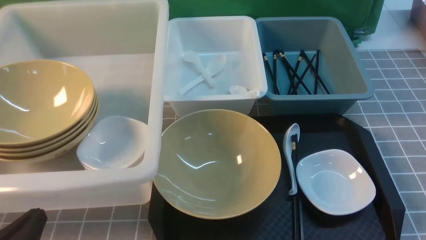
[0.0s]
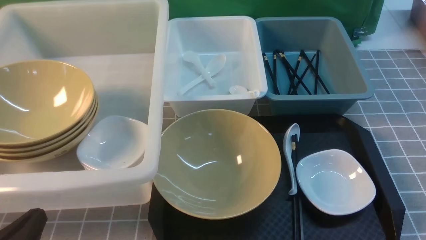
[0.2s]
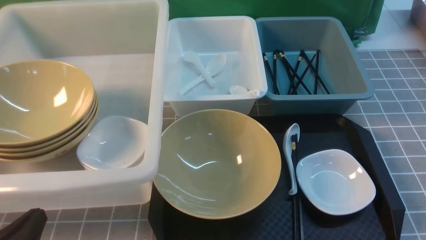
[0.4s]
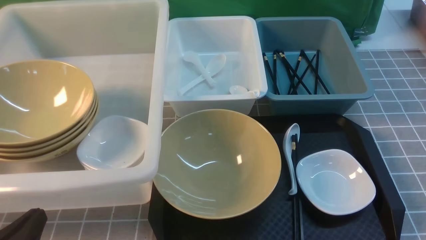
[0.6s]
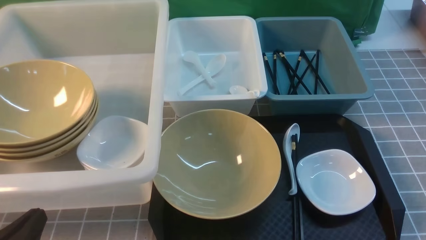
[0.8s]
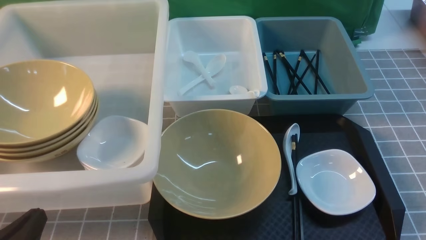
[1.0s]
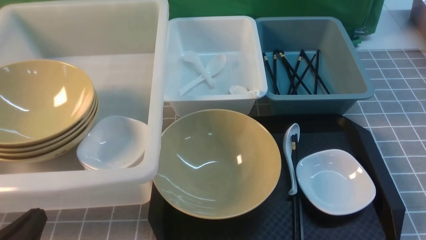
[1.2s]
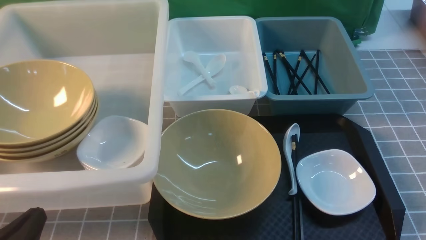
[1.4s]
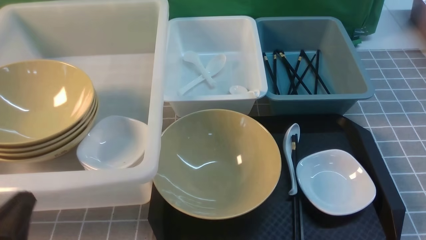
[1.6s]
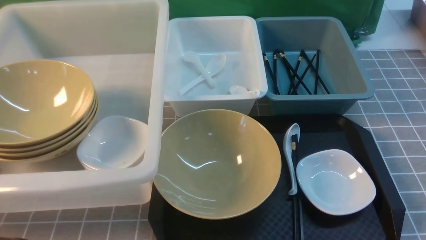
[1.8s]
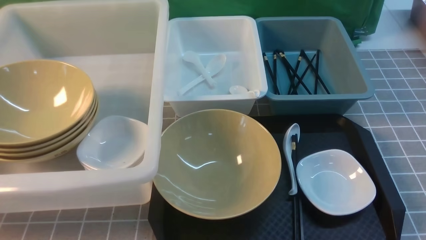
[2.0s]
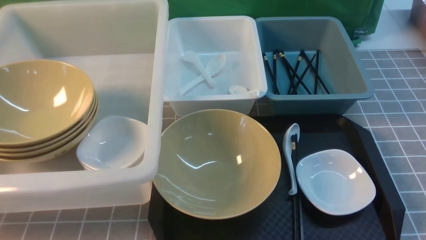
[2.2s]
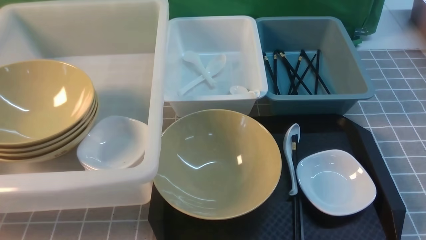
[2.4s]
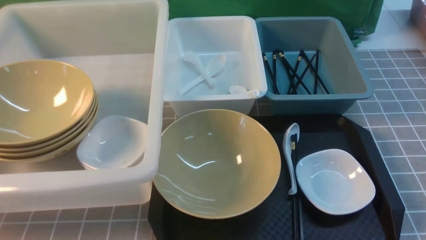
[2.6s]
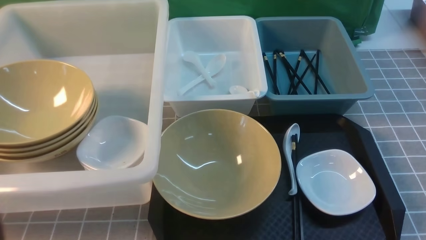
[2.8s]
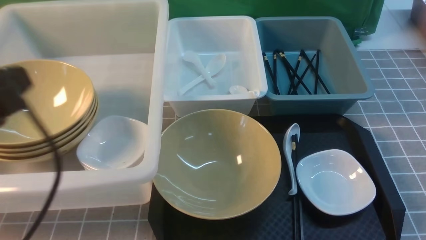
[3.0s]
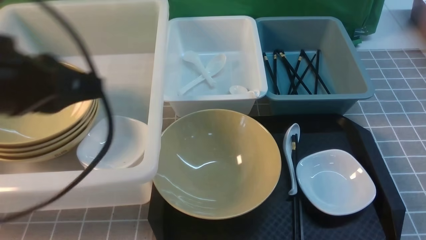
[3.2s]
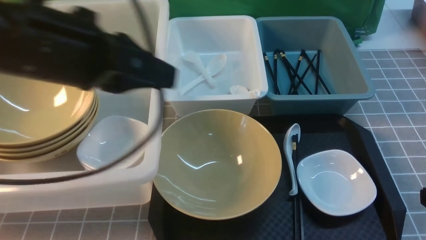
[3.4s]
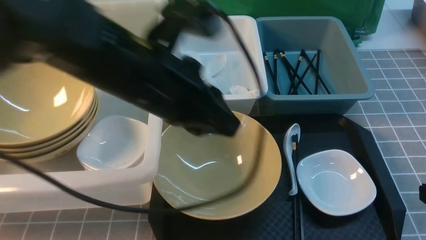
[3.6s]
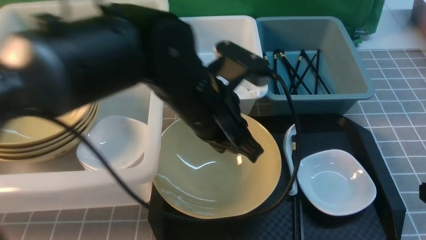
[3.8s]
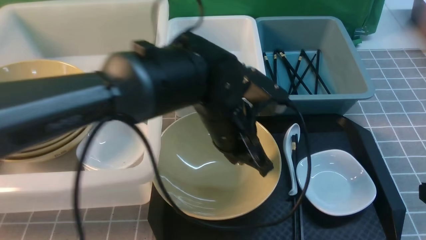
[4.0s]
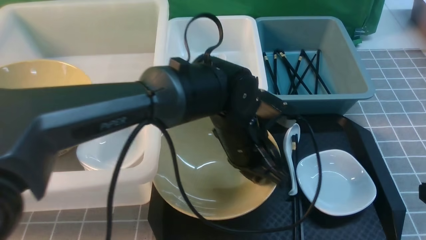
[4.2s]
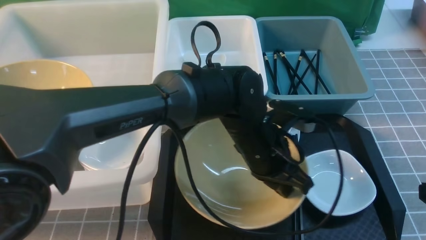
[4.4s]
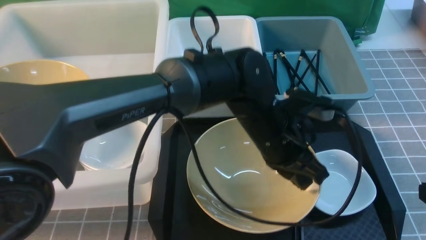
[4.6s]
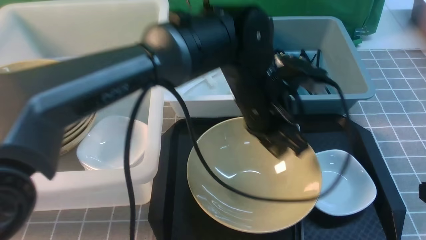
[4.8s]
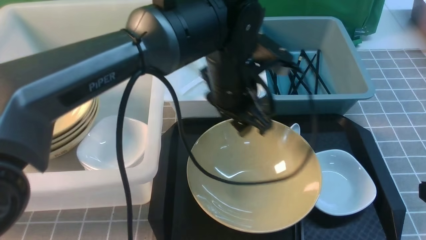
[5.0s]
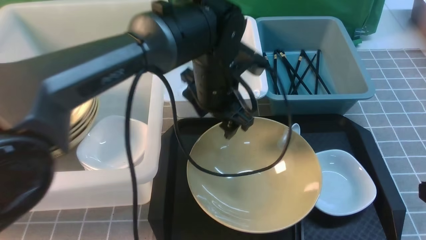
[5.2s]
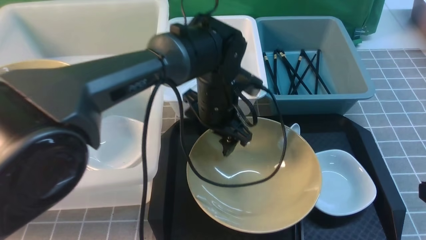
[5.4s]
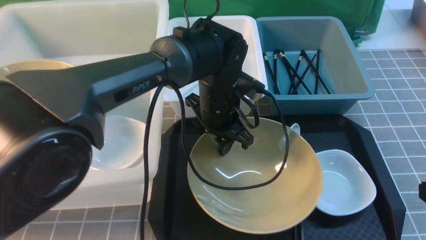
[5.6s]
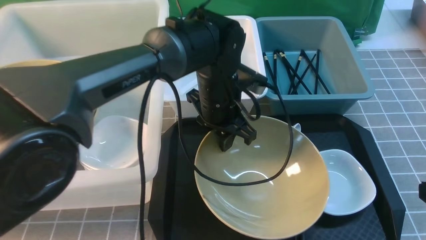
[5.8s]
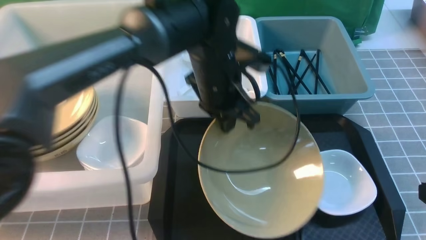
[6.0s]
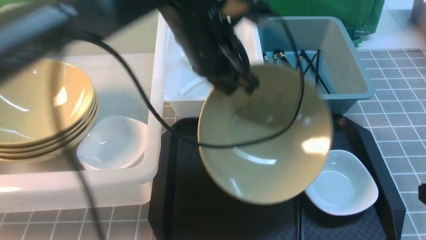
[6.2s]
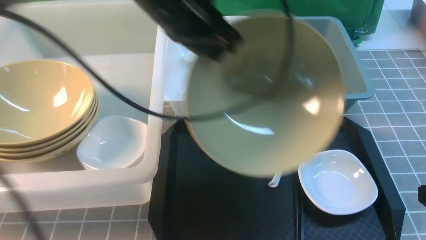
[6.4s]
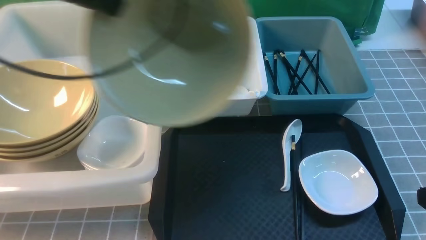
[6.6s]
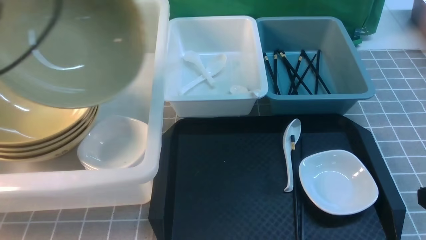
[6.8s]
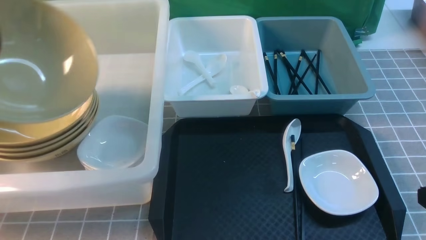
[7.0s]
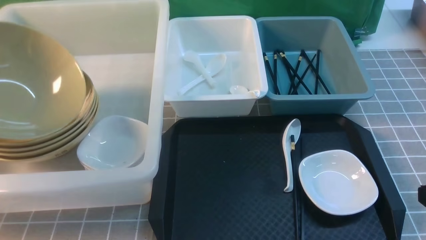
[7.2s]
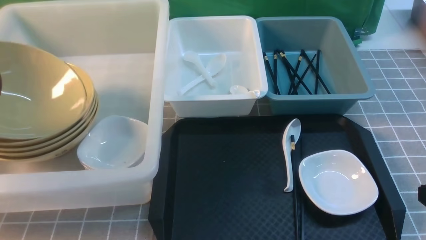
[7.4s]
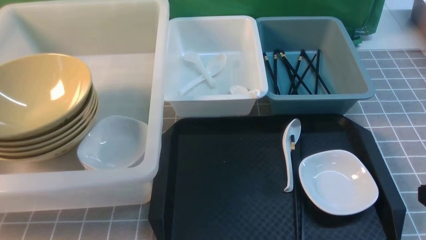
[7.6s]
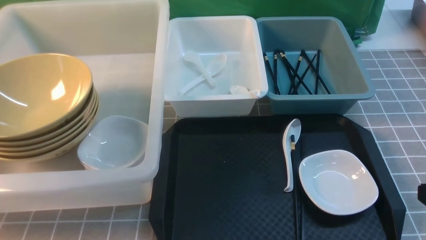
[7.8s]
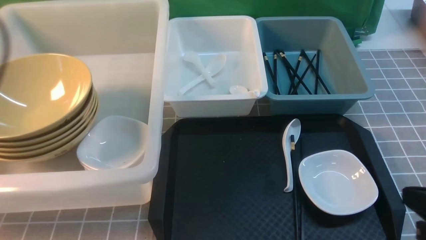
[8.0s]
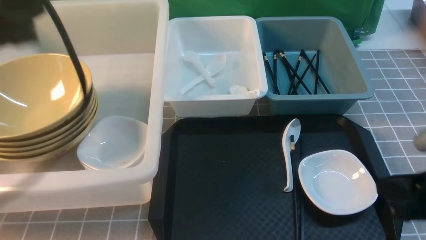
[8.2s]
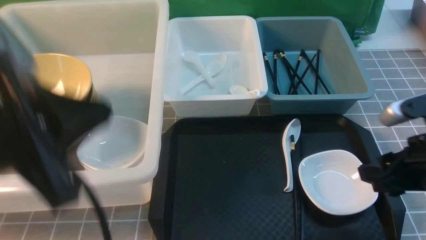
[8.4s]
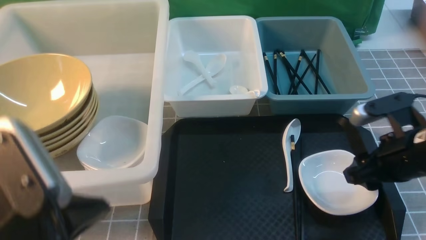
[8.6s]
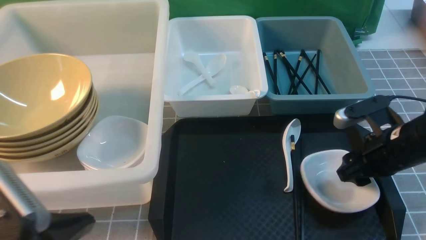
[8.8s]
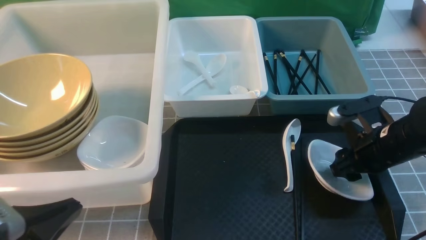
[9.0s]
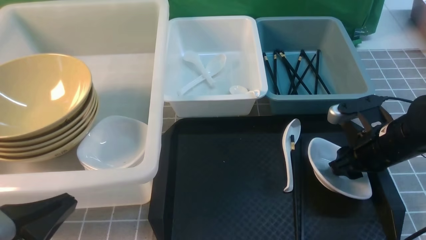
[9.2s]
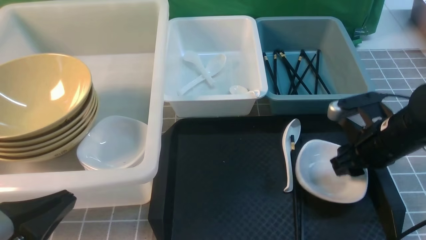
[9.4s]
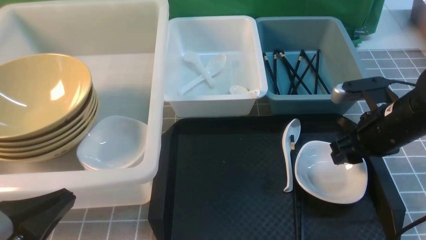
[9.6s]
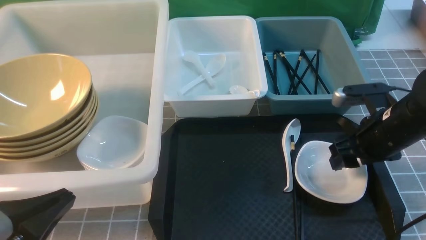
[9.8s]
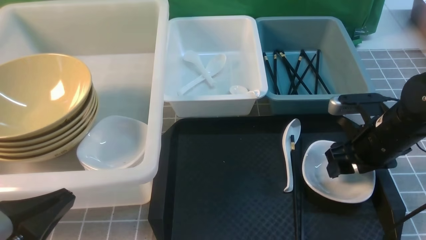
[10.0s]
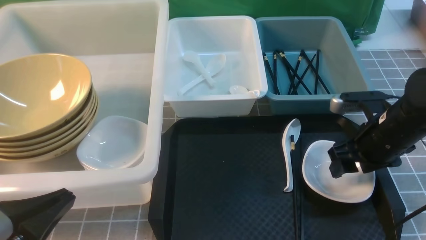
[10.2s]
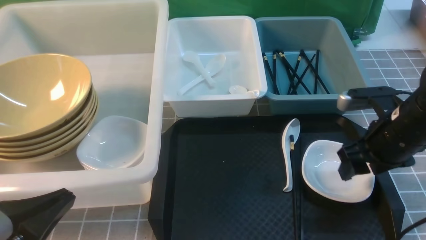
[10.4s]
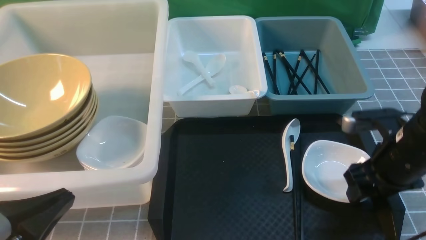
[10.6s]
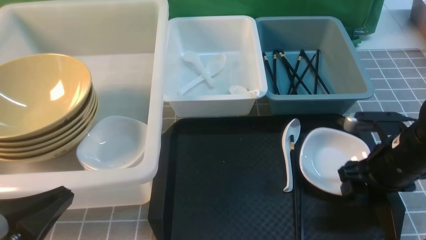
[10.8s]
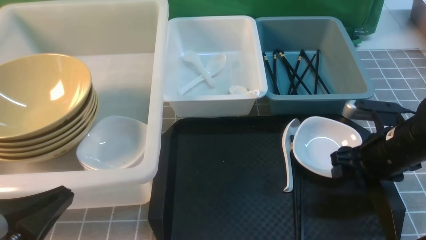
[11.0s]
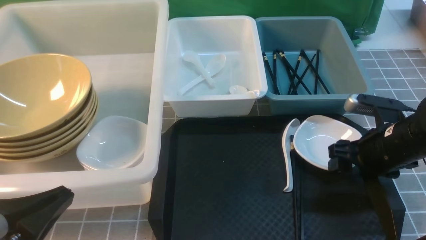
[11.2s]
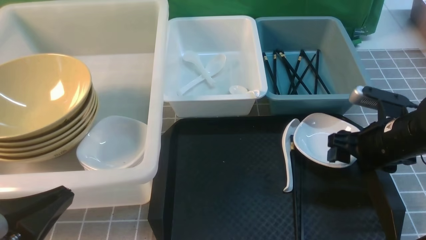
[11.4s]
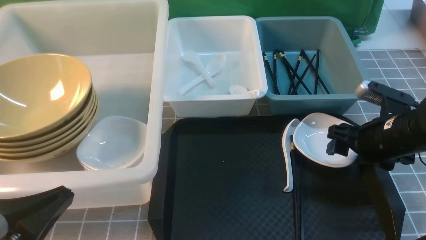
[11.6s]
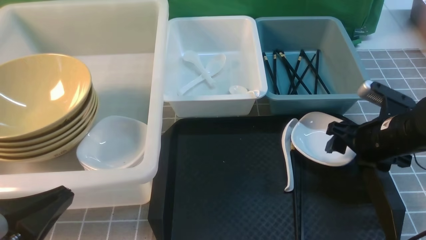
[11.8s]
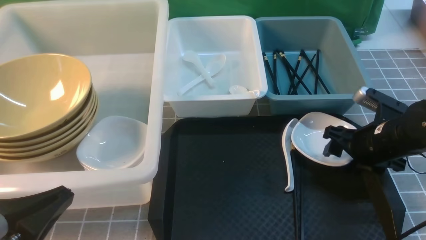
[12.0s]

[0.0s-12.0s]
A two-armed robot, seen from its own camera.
Task of the whole recording: on grey table put chopsticks spoon bowls plates into blue grey white boxes.
Step, 0.0s to 6.0s: use the left arm to grab the yellow noodle bowl on the left.
Step, 6.2s to 7.6s: use the left arm to put the noodle bowl into the large storage box on the left.
0.0s to 1.6s: There are only small adjustments of the grippers.
1.6s to 3.0s: The left gripper goes roughly 20 cm upward and forward.
3.0s to 4.4s: The left gripper goes roughly 35 cm to the right, downward and forward; the right gripper shifts by about 5 cm.
4.4s to 6.0s: The left gripper is displaced upward, to the left and forward by roughly 10 cm, and opens, then closes once more.
6.0s to 7.6s: The left gripper moves to the left, approximately 40 cm, and opens its fingers.
7.6s to 9.0s: The left gripper heads backward and to the right, covering about 25 cm, and closes up. Meanwhile the right gripper shifts approximately 20 cm forward and downward, and opens its fingers.
9.0s to 10.4s: The grippers make only small movements.

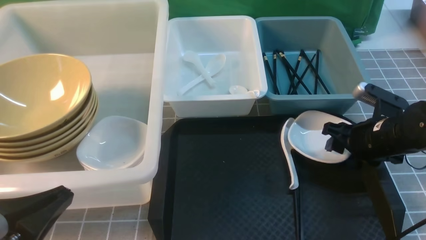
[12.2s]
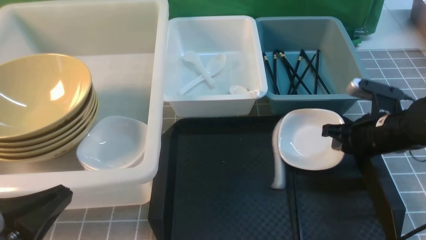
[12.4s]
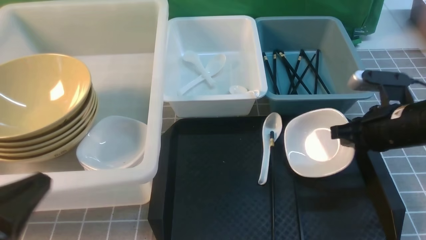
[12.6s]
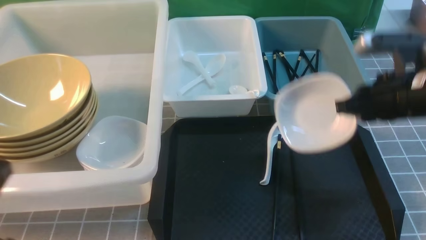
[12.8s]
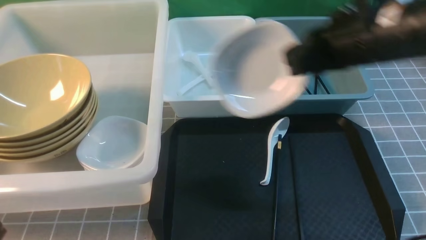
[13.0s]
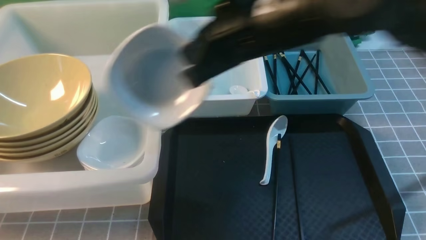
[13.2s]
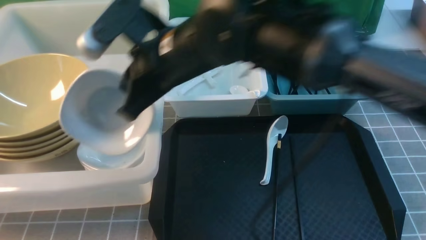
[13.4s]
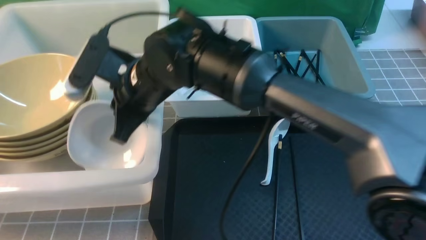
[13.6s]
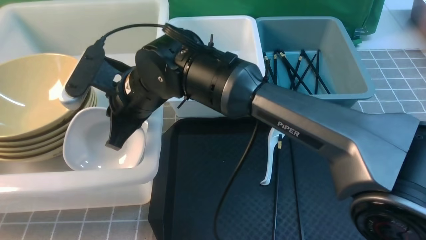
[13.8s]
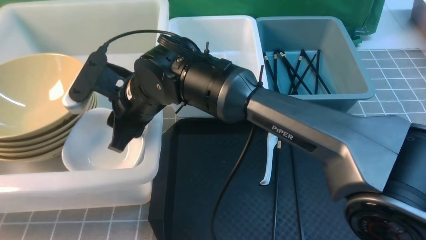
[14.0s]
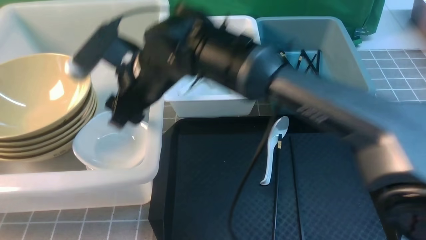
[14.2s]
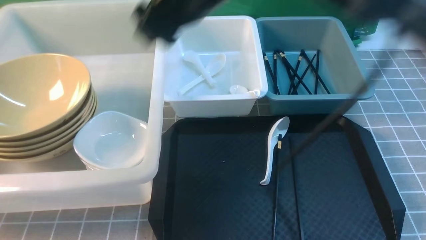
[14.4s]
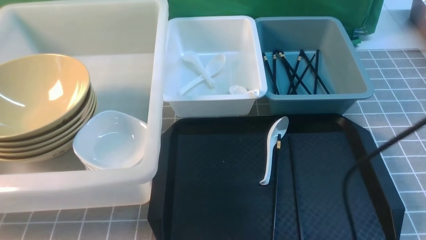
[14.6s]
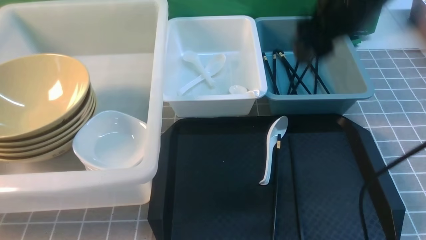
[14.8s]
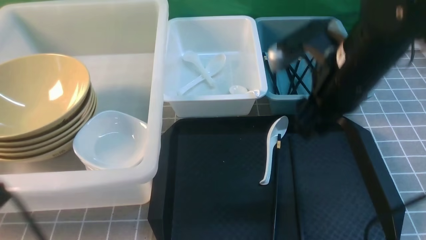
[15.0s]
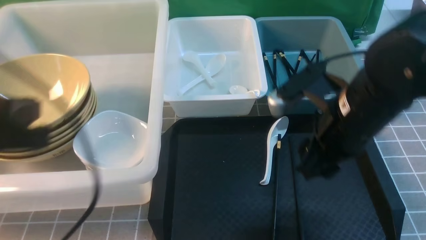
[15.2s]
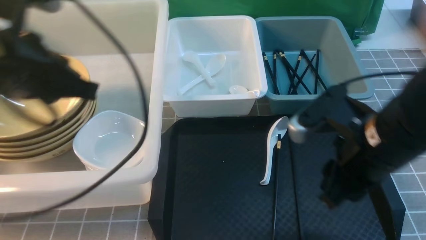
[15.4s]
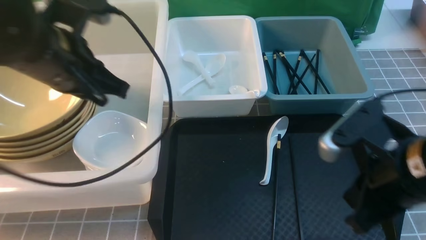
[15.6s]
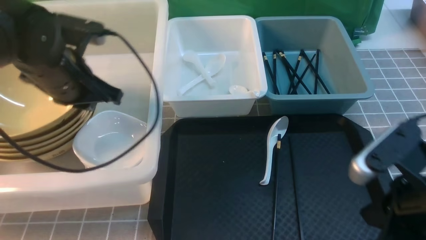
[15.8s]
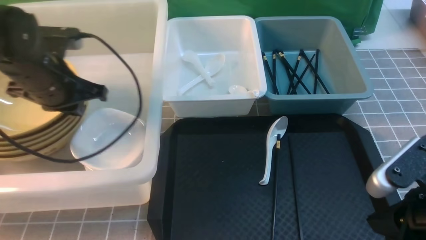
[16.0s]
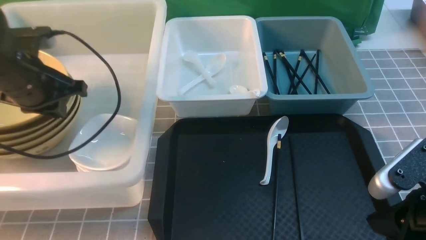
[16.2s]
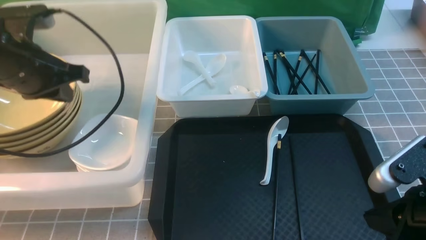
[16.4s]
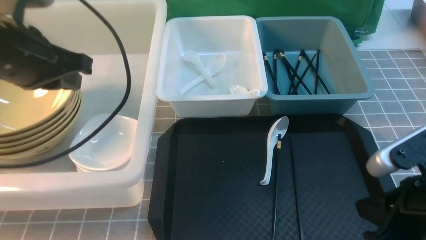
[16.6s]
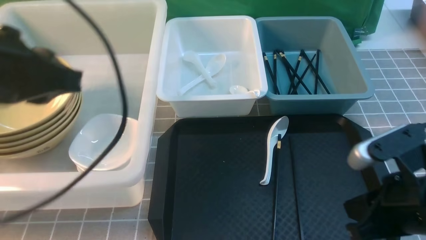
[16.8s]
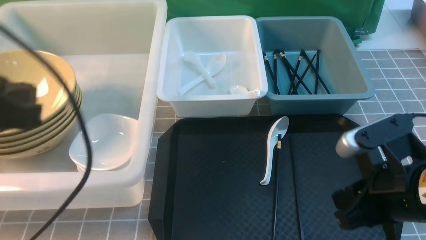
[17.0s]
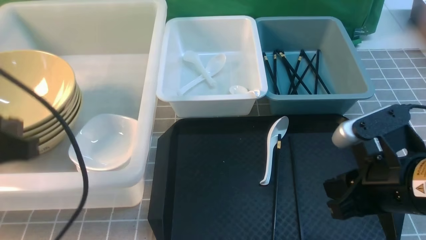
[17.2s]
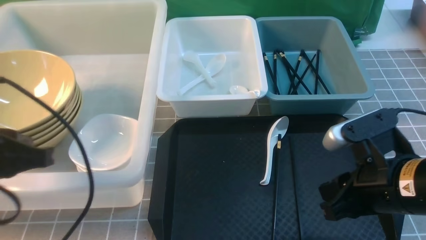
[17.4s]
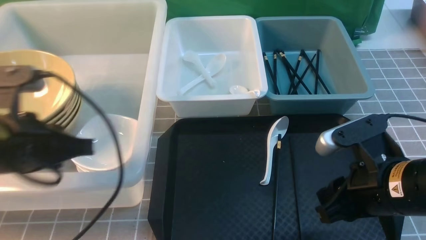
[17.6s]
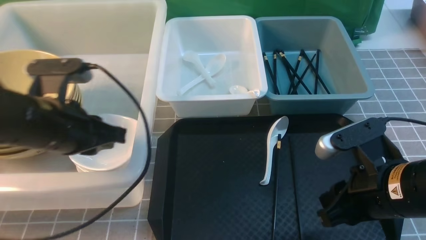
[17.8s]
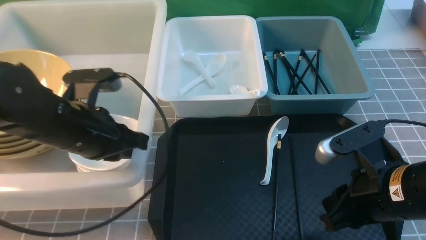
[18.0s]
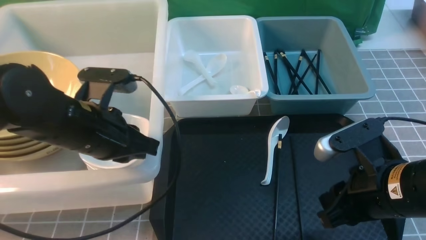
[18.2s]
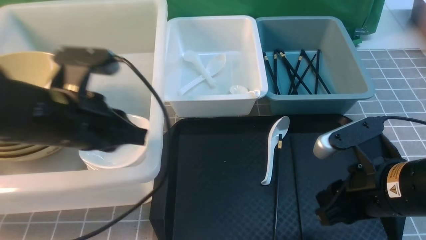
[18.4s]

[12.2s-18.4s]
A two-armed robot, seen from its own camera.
Task of the whole recording: on grey table put chopsticks spoon bowls plates into blue grey white boxes.
Step, 13.0s to 14.2s: use the right arm to put the plate into the large storage box on the left.
12.2s to 13.8s: The right gripper is displaced to the left by about 35 cm.
13.8s to 15.4s: The left gripper goes some 20 cm forward, upward and to the right; the right gripper goes approximately 30 cm to the right and backward, and opens, then closes again.
15.4s to 16.8s: The right gripper moves backward, roughly 5 cm. The left gripper reaches about 10 cm forward, then returns.
16.8s to 18.4s: The left gripper moves downward, roughly 5 cm.
